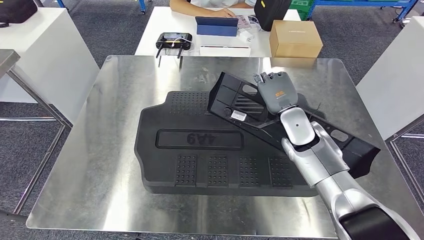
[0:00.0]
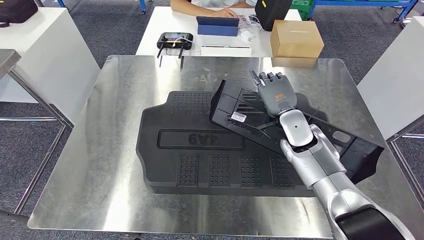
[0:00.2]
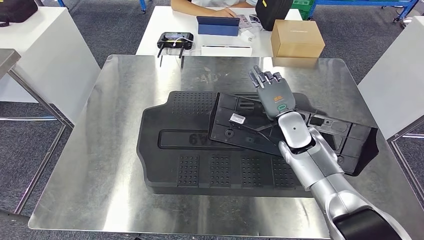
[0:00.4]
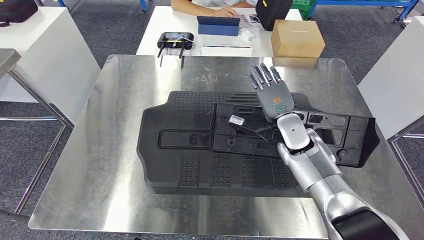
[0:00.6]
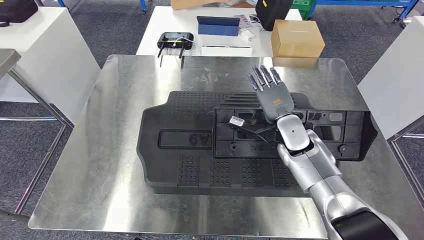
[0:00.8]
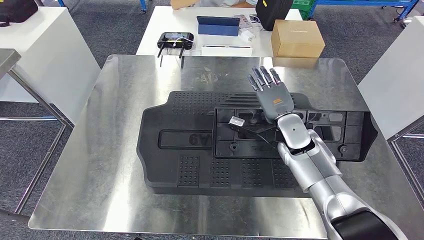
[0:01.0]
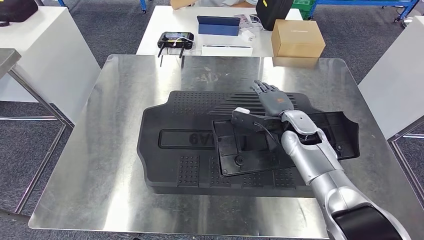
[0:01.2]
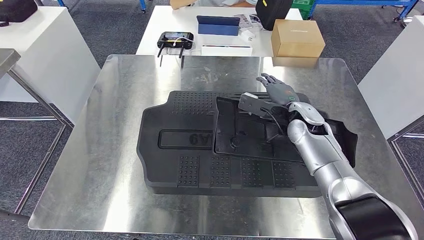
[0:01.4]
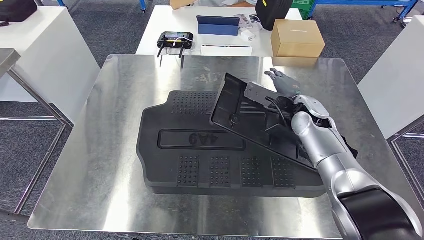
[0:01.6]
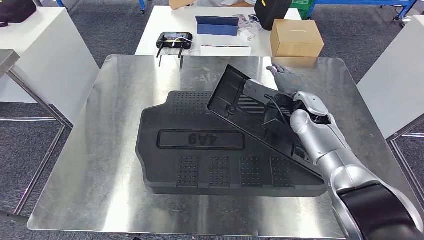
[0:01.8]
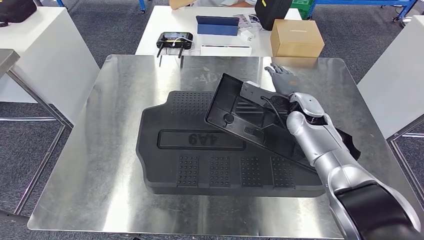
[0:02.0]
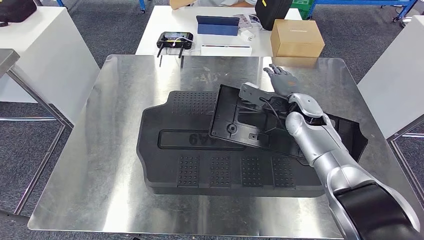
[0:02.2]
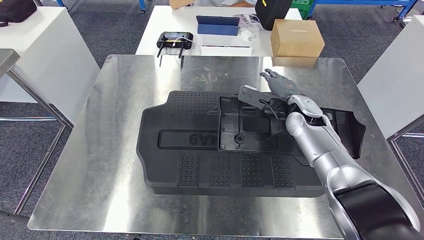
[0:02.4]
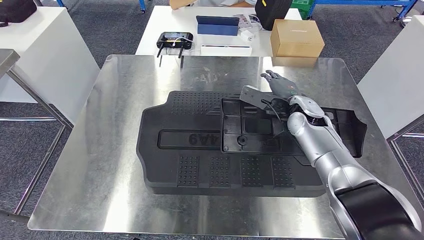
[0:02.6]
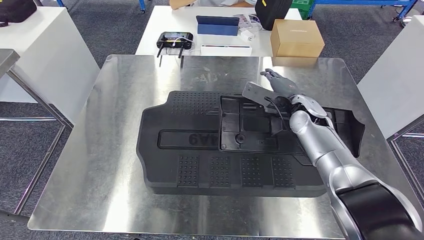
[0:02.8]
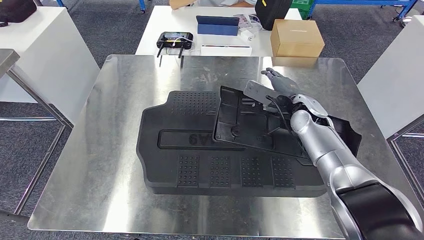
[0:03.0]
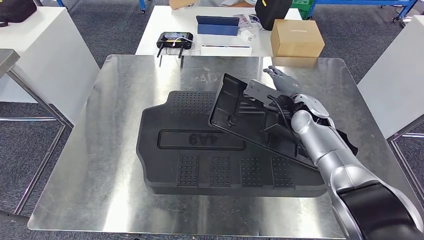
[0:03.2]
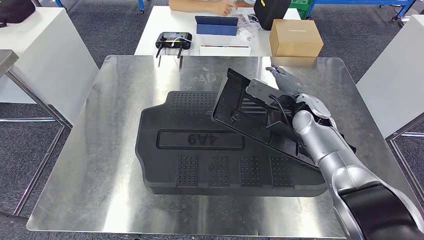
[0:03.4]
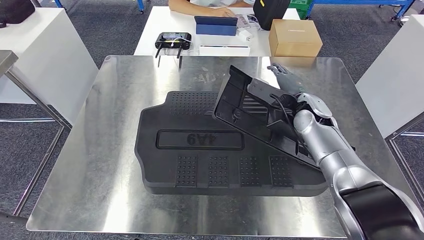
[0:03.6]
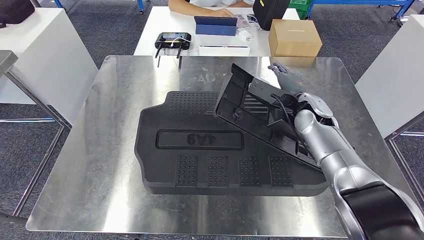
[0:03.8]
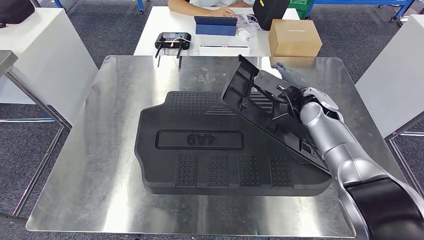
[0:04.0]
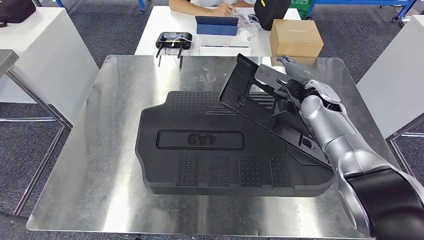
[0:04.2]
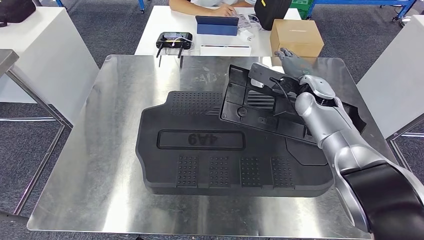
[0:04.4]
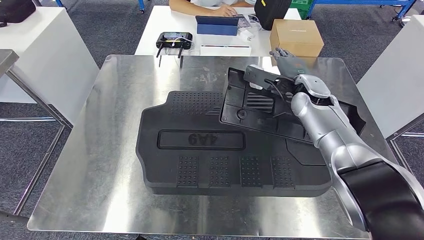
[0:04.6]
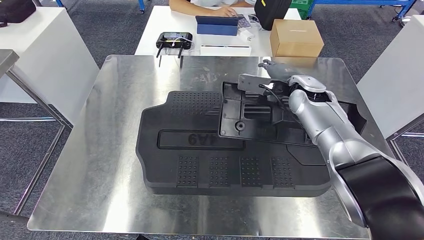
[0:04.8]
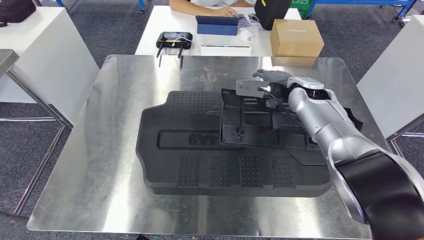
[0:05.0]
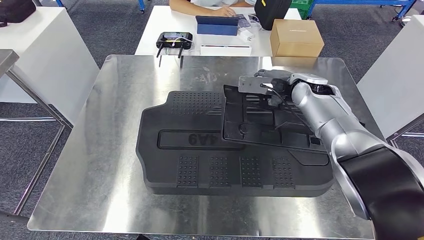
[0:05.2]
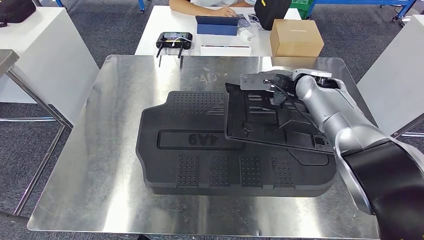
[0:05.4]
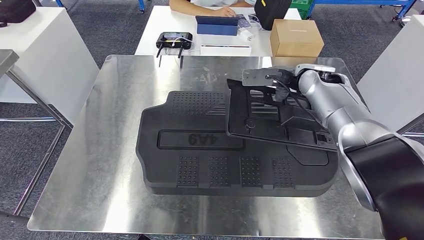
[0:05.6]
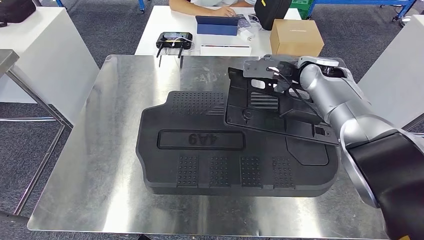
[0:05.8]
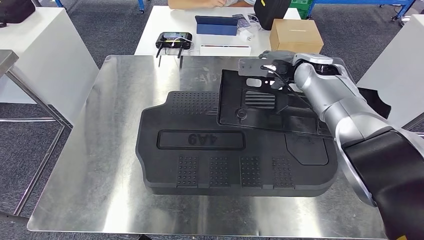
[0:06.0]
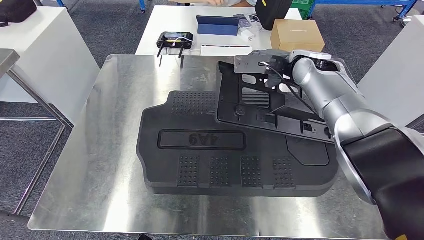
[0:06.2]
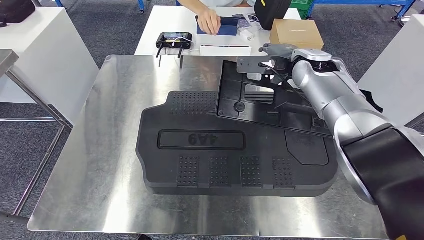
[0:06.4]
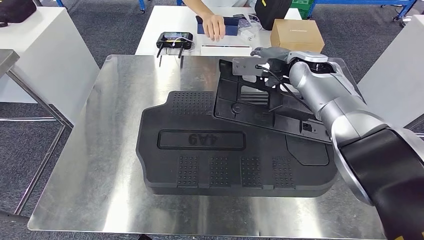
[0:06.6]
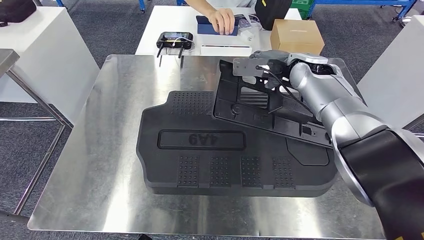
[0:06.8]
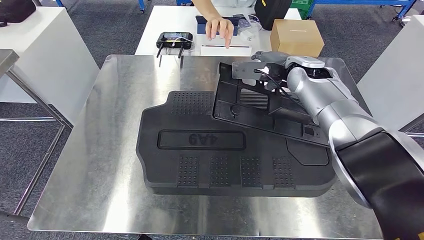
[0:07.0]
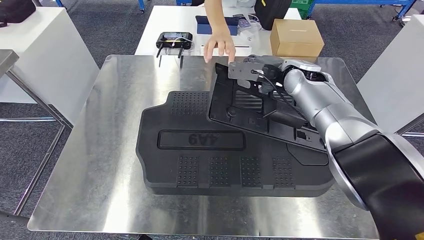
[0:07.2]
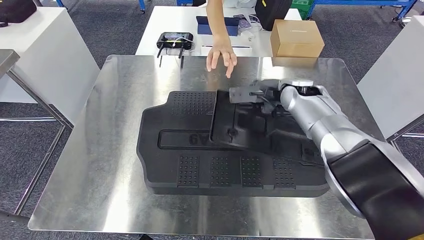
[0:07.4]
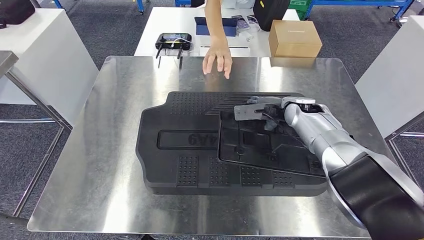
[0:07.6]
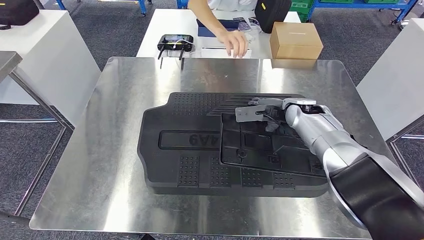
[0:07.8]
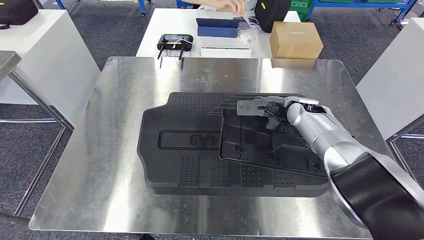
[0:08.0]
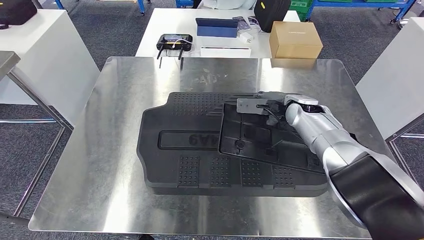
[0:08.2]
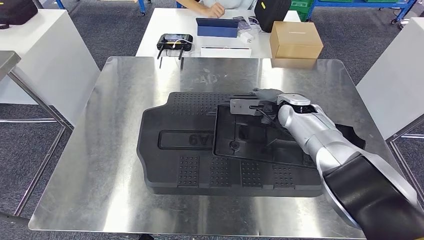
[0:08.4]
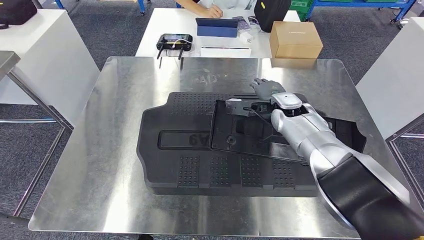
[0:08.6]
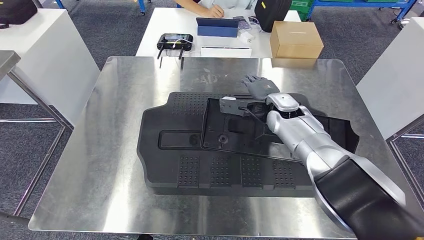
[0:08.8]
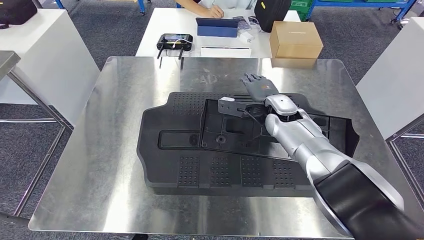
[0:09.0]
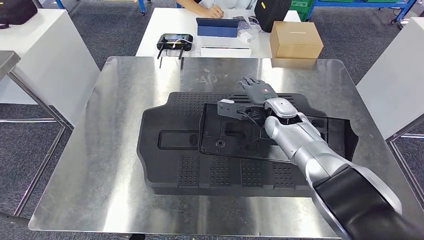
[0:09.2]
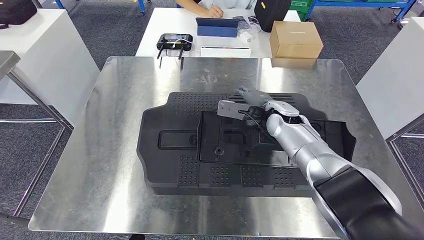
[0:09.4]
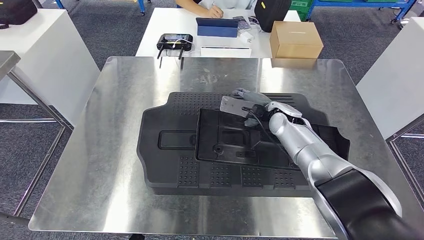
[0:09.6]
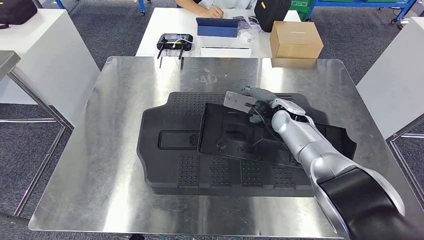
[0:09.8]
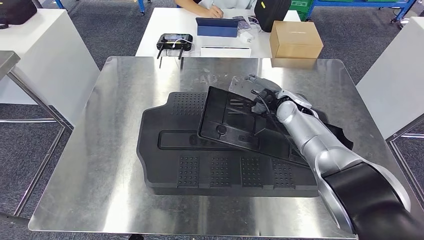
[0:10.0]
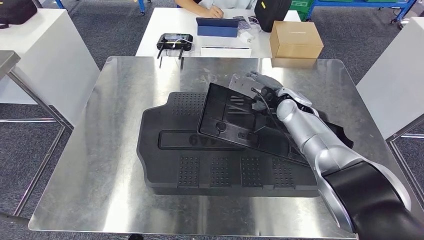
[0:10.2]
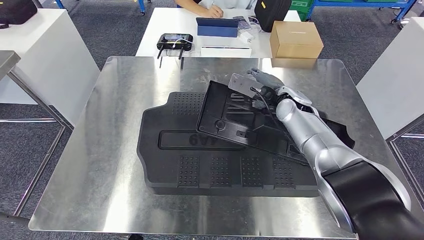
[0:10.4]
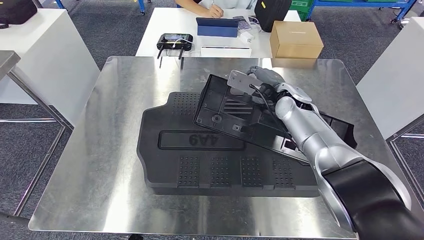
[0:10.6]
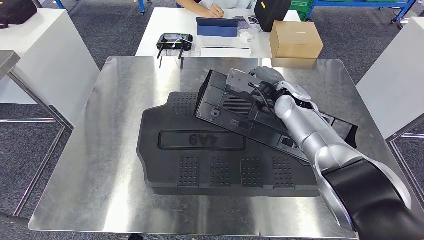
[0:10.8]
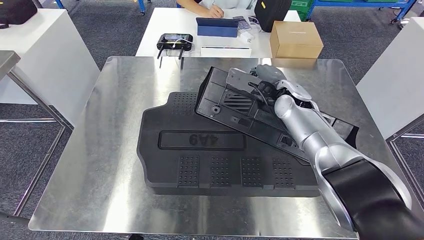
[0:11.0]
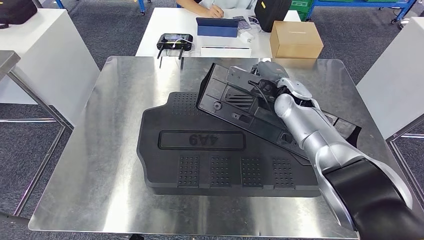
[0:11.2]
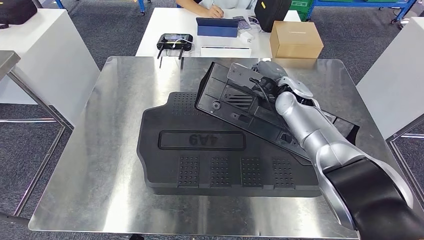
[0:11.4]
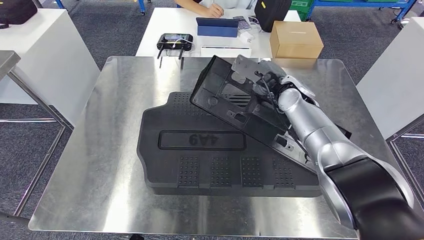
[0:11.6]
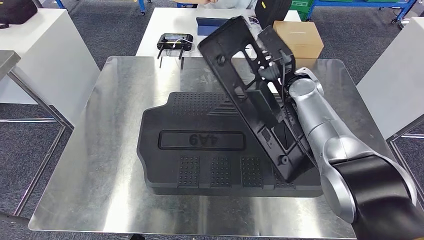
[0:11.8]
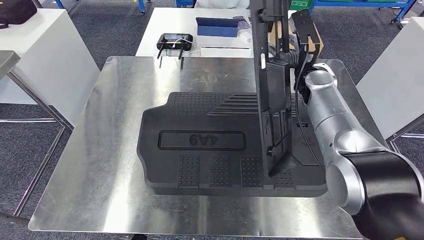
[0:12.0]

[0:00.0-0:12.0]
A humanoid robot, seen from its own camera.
Step, 0:00.0 to 0:09.8: Insert the large material into the corresponding hole on the workbench.
0:00.0 to 0:01.6: The right hand moves some 5 cm.
0:01.6 to 0:03.0: The hands stay close to where they were, moving slightly.
0:03.0 to 0:04.4: The right hand moves approximately 5 cm.
0:04.4 to 0:06.0: The right hand goes approximately 5 cm upward.
0:07.6 to 0:09.0: The right hand is displaced to the left by roughly 5 cm.
0:10.4 to 0:12.0: The right hand moves upward, some 5 cm.

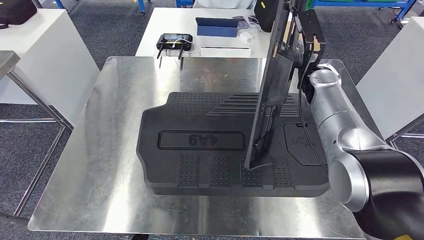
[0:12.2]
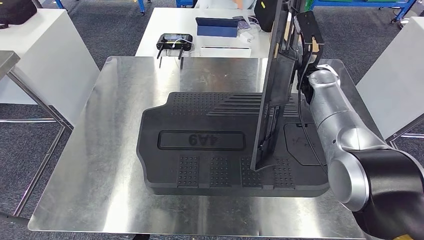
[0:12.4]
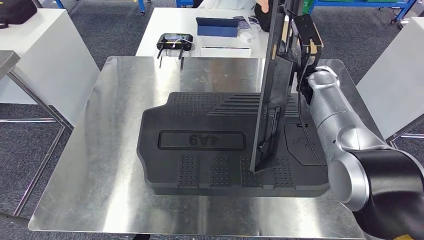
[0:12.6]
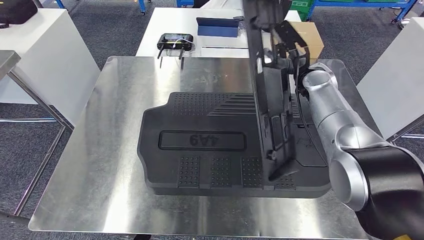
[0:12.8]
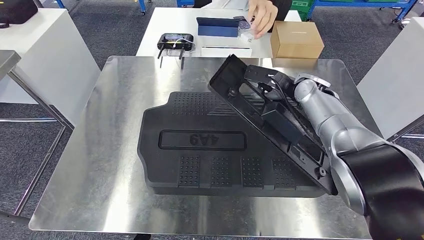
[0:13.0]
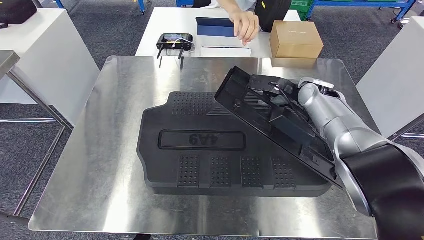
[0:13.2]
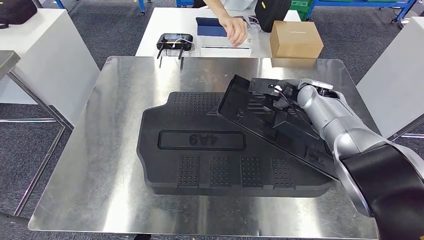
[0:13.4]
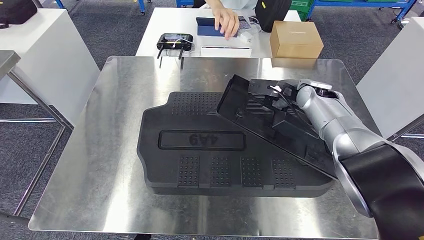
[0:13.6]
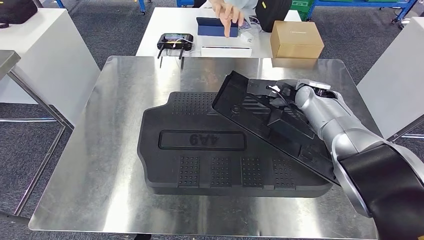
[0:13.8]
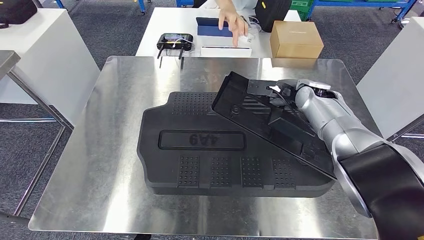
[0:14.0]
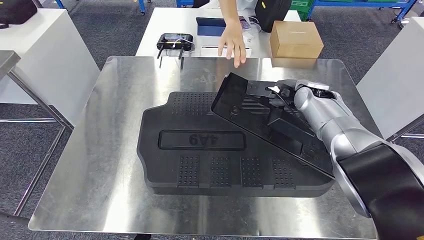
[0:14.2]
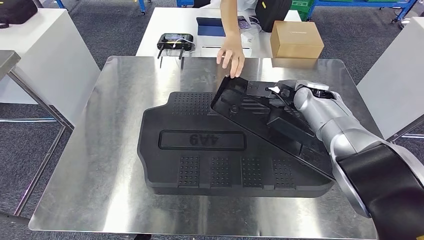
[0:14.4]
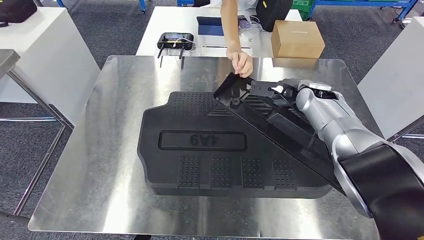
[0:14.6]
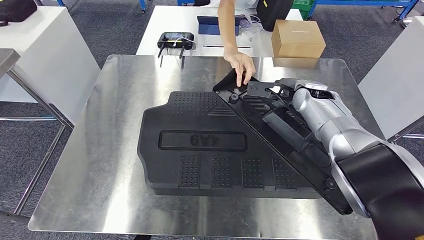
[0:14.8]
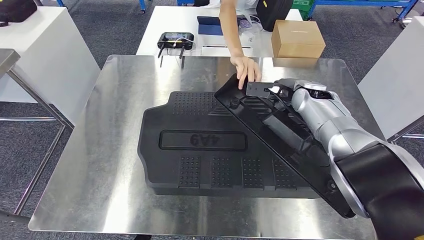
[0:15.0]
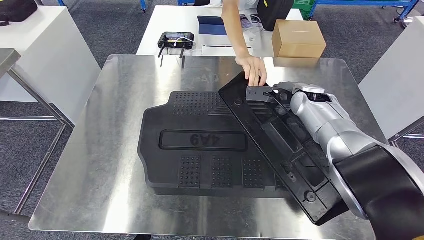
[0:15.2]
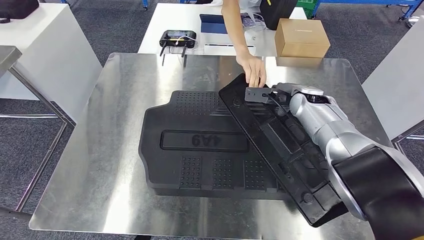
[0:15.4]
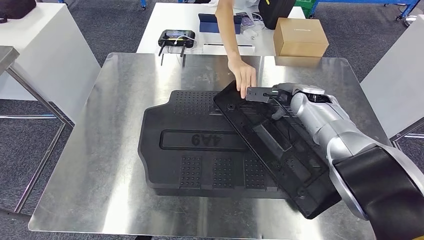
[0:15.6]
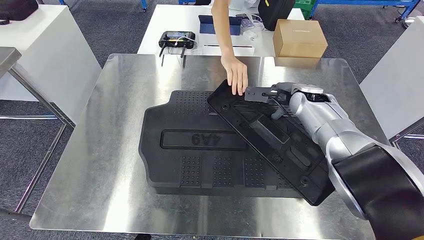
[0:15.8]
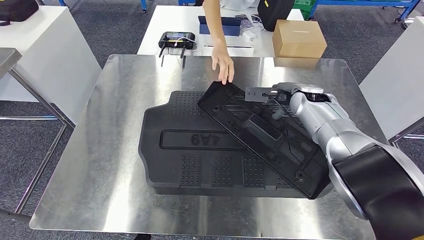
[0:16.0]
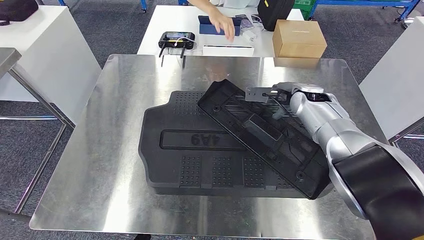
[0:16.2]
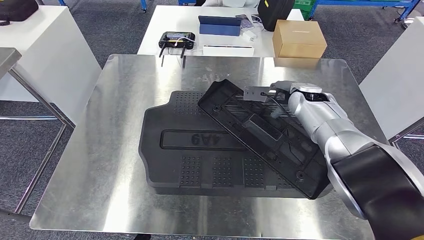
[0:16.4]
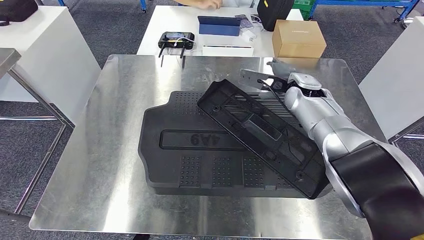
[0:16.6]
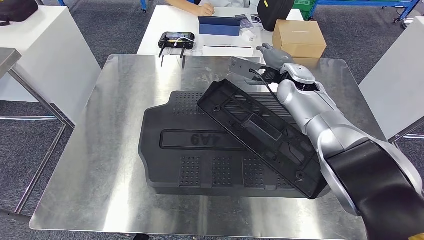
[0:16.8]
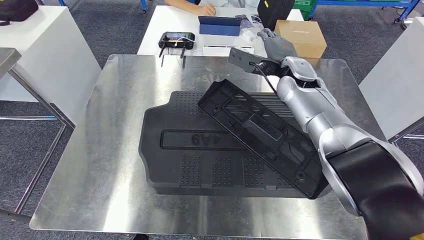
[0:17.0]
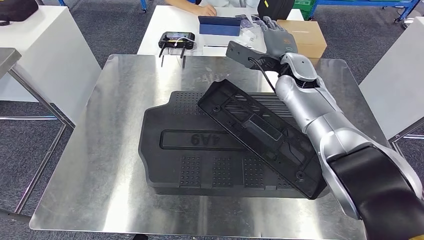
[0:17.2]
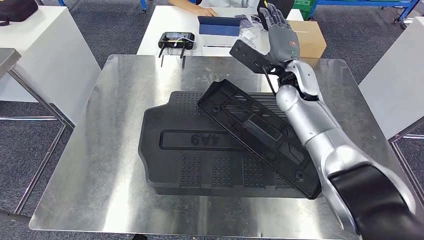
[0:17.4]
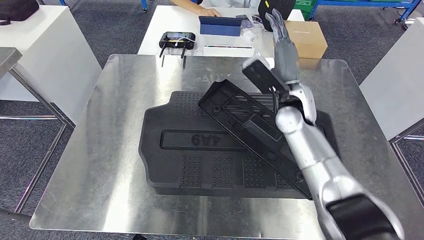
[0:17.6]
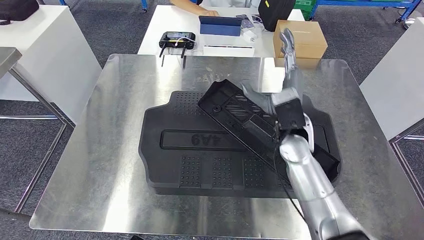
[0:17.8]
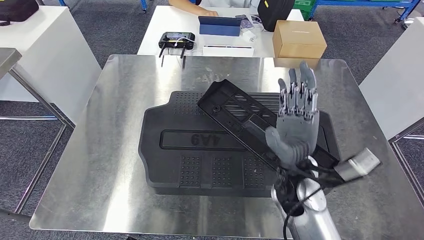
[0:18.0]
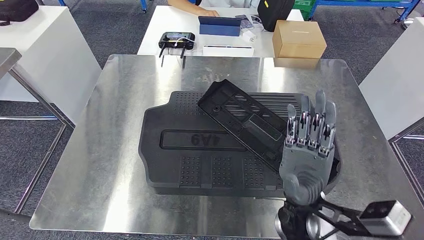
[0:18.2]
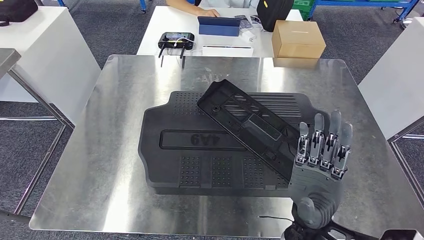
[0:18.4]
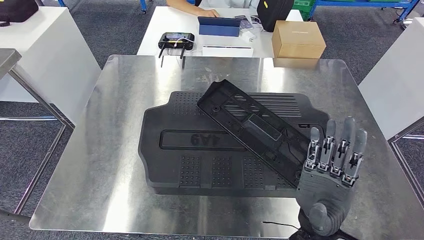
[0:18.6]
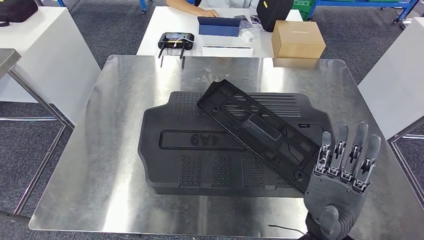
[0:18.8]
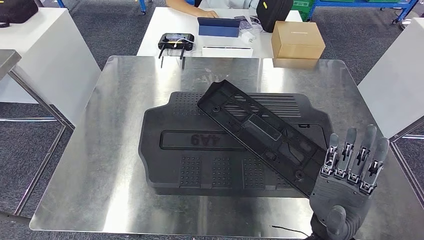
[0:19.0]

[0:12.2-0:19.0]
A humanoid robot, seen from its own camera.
0:13.6 to 0:15.0: The hands stay close to where they were, moving slightly.
0:15.0 to 0:16.2: Neither hand changes place.
0:16.2 to 0:17.6: The right hand moves backward and to the left, about 10 cm.
0:17.6 to 0:19.0: The right hand travels backward by about 25 cm.
